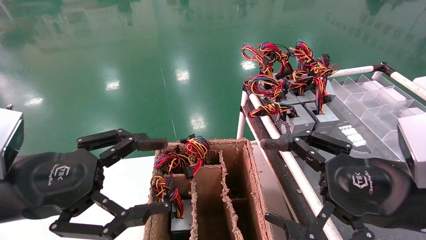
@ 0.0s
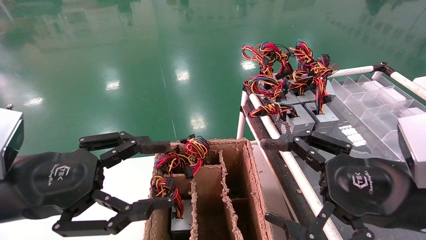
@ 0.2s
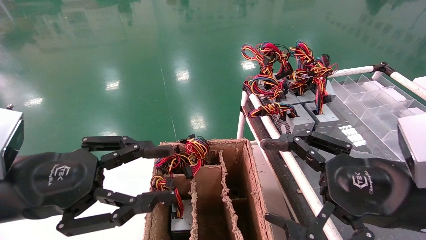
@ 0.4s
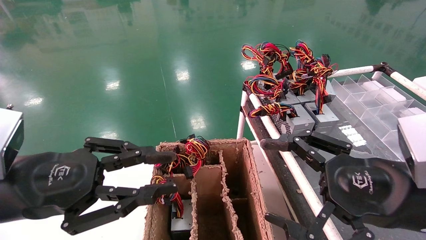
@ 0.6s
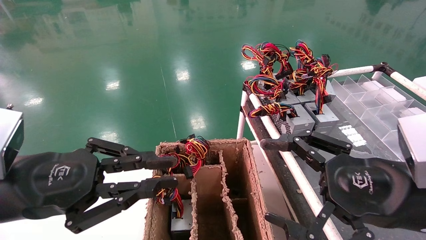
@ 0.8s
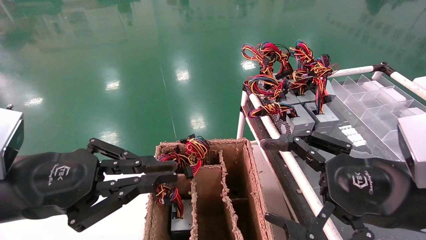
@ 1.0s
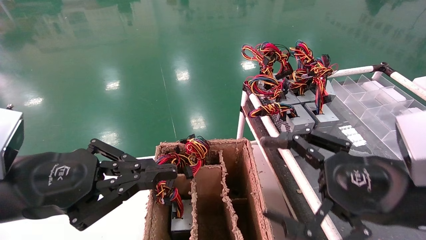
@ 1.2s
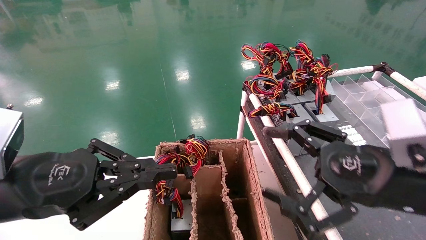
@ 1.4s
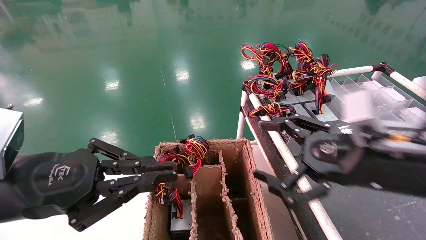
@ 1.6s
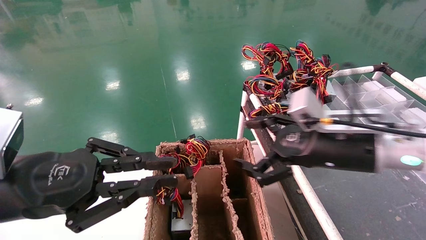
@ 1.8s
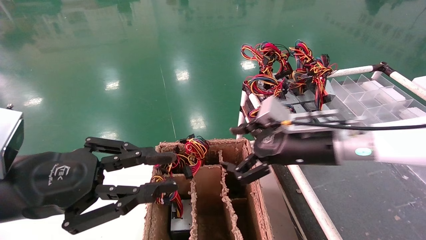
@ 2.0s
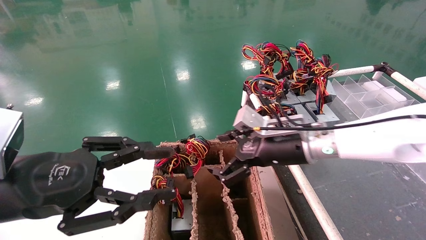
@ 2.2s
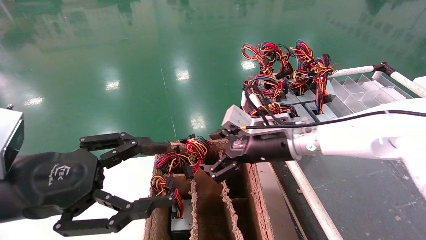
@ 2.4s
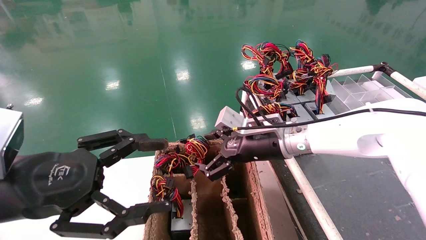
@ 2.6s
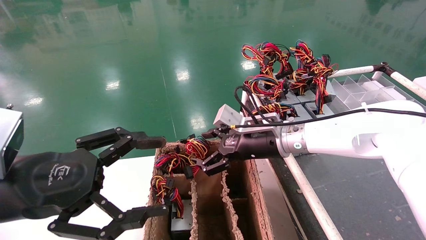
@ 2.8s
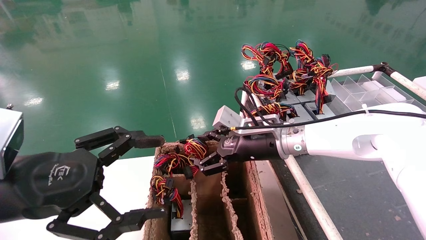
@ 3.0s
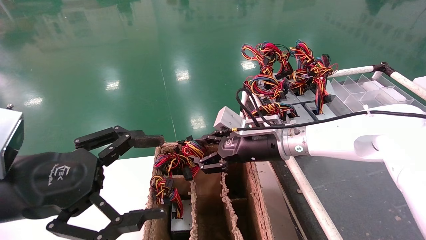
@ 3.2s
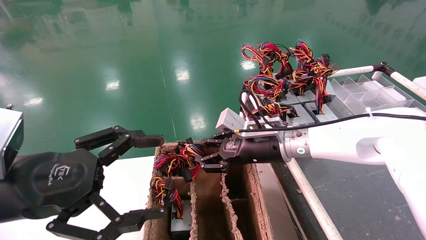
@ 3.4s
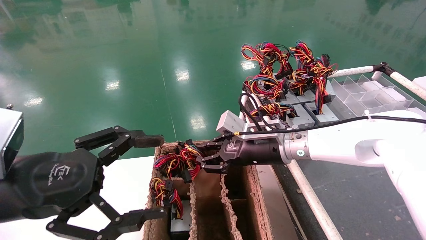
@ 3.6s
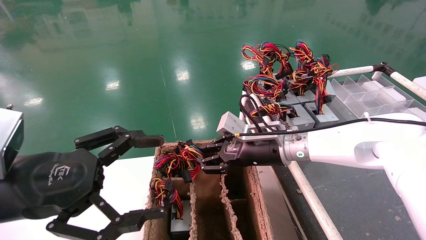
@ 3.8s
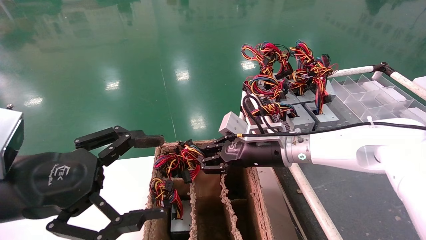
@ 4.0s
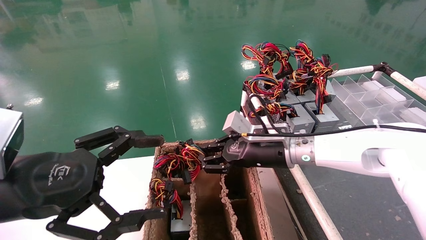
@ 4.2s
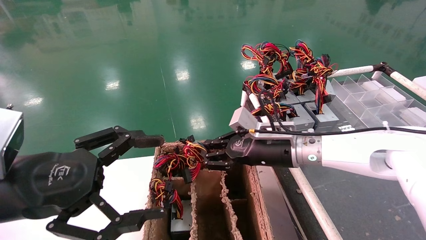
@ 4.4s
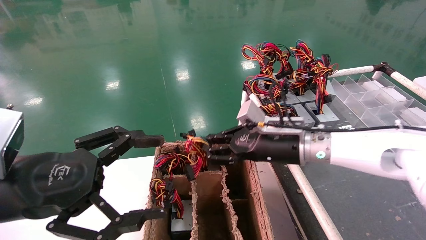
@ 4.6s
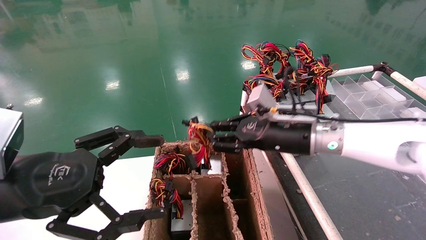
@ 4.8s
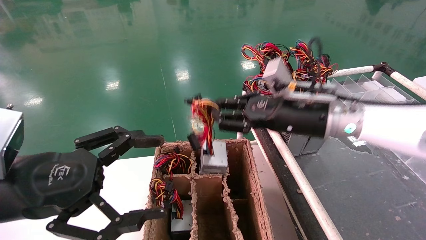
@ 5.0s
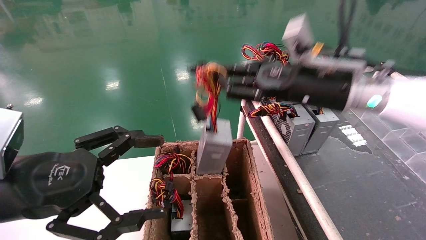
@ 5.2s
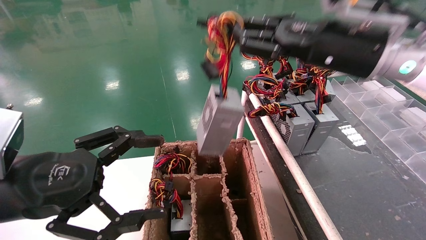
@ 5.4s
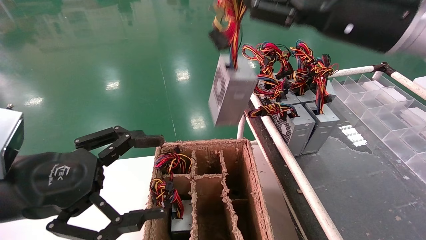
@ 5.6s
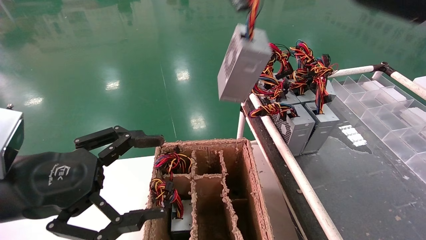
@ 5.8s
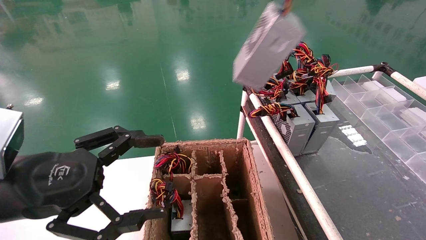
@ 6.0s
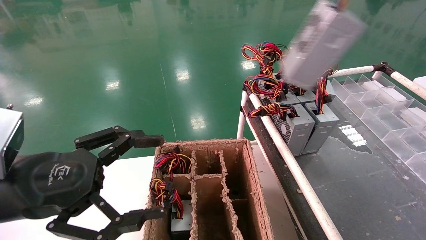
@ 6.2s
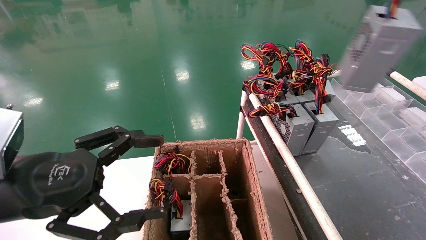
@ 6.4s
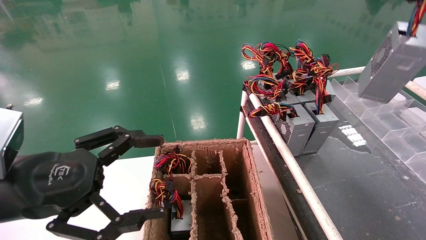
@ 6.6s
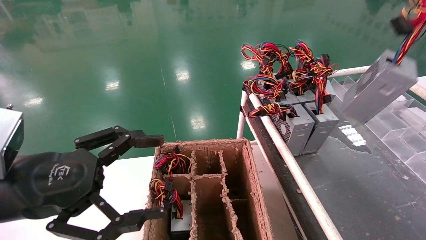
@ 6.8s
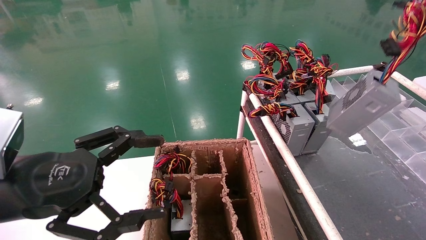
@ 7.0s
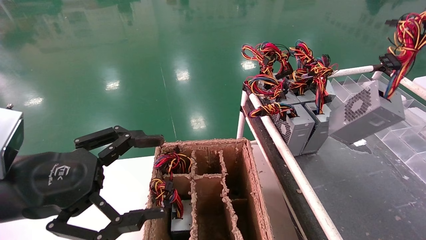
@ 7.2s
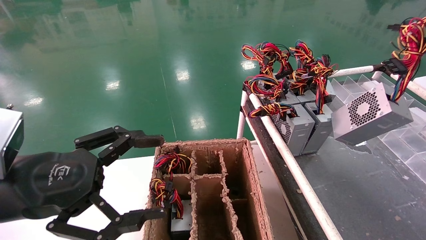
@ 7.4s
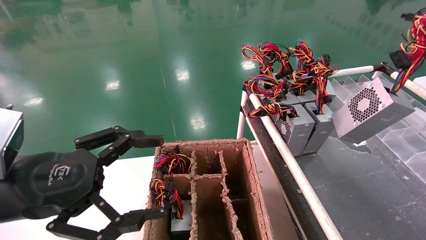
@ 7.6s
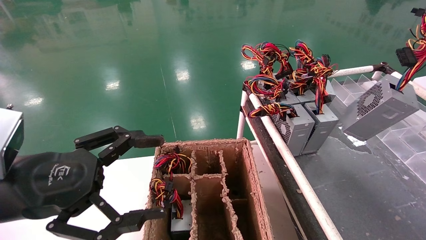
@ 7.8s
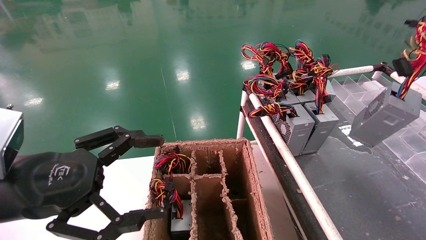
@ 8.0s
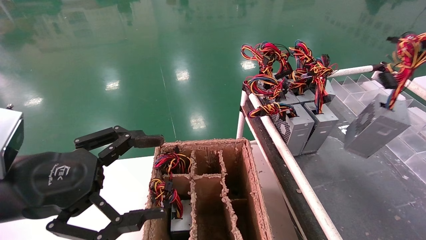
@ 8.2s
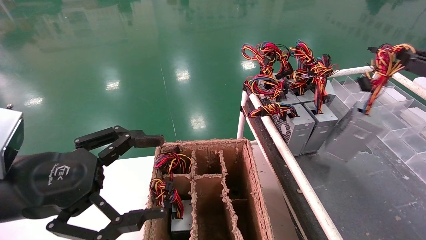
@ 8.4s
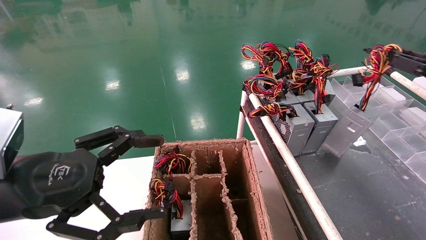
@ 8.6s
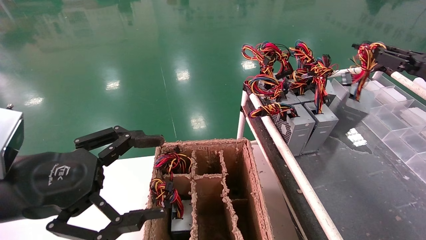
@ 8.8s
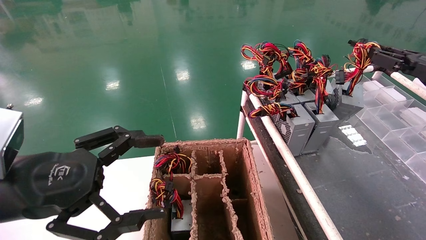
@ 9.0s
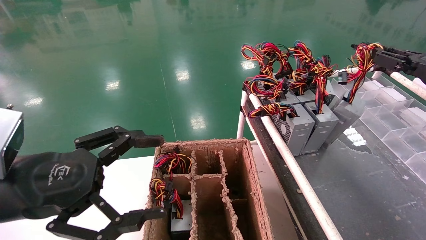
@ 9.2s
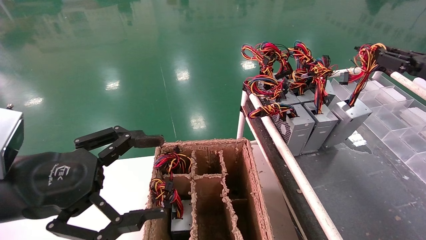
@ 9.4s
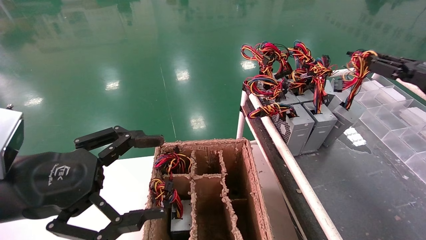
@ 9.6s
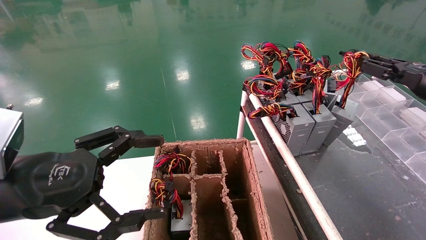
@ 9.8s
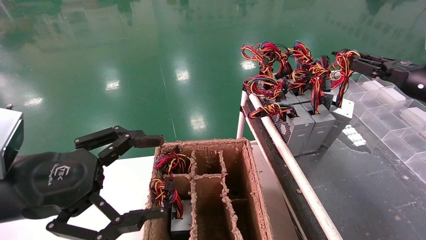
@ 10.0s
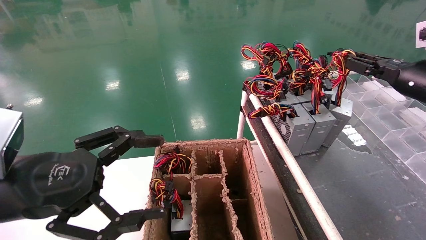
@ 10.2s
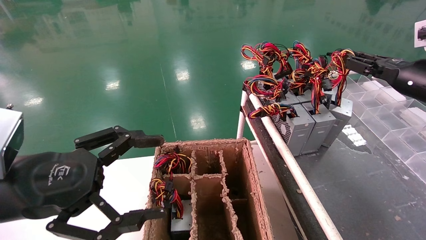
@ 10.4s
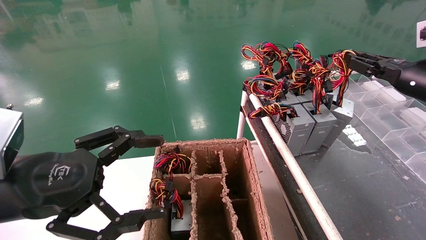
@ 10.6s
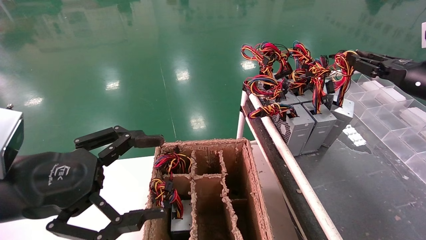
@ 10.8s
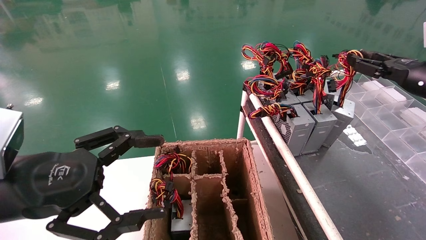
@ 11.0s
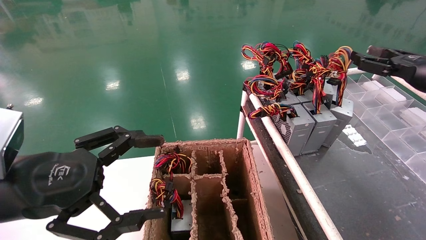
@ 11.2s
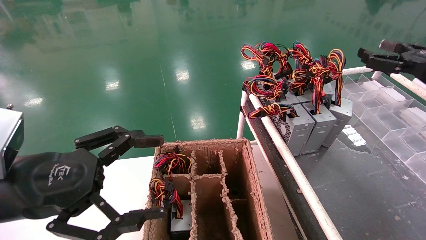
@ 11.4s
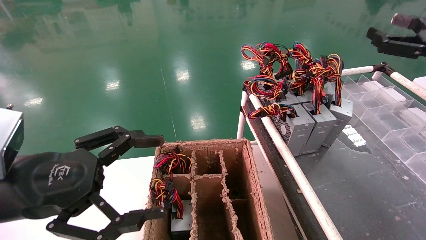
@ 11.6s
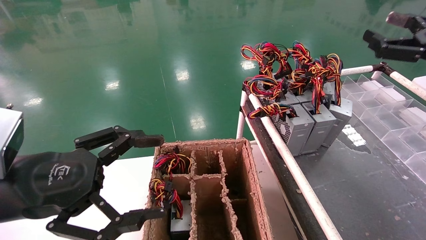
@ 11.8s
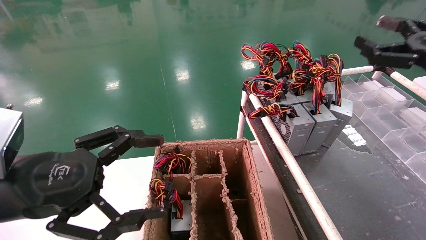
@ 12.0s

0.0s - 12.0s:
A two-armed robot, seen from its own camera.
Step, 1.4s - 4.0s: Grab and lift the power supply from the large box.
Step, 4.2s - 10.8s: Place the power supply on the operating table.
0.0s - 1.6s: The right gripper heads forward, covering approximately 5 cm. Meanwhile the left gripper closes up.
1.6s - 3.0s: The left gripper opens its fingers, while the right gripper heads forward and to the left, covering approximately 20 cm.
3.0s - 4.4s: The right gripper closes its fingers.
4.4s - 6.0s: The right gripper goes approximately 35 cm upward, to the right and backward.
6.0s - 7.6s: The right gripper heads to the right and downward, covering about 20 cm.
7.6s - 9.0s: The right gripper goes about 10 cm forward.
9.0s - 10.4s: The grippers stay close to where they were, moving slightly.
10.4s - 12.0s: The right gripper travels backward by some 5 cm, and opens.

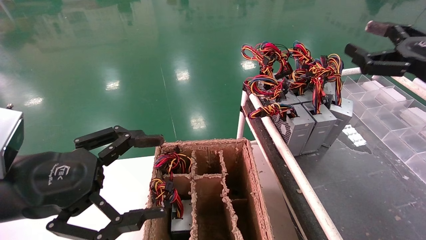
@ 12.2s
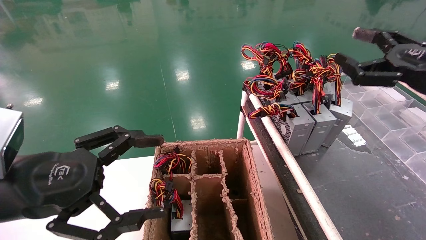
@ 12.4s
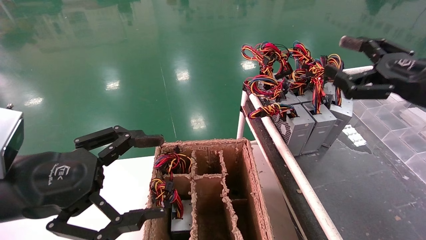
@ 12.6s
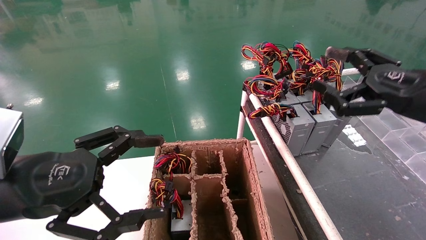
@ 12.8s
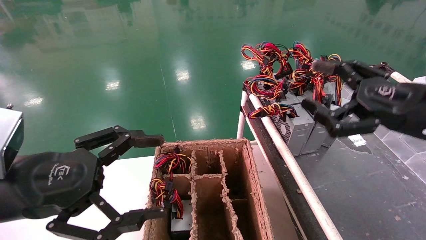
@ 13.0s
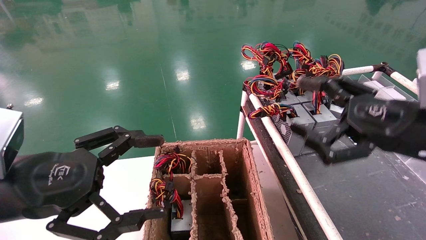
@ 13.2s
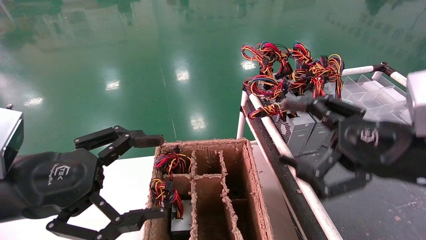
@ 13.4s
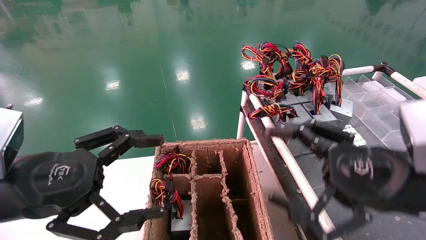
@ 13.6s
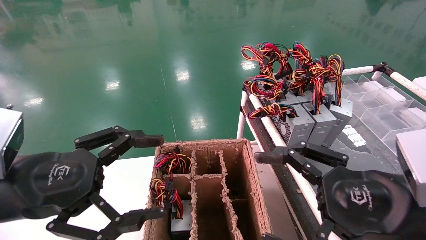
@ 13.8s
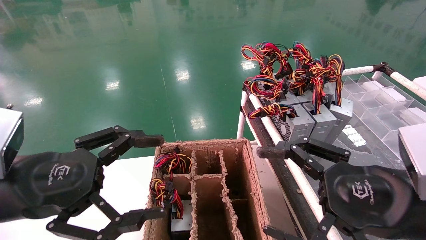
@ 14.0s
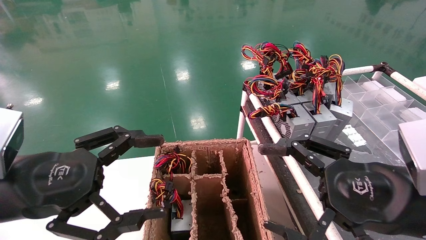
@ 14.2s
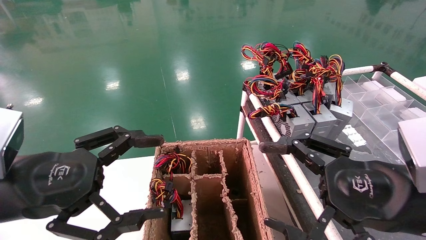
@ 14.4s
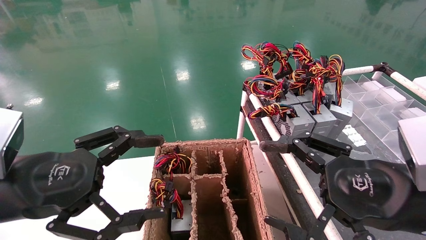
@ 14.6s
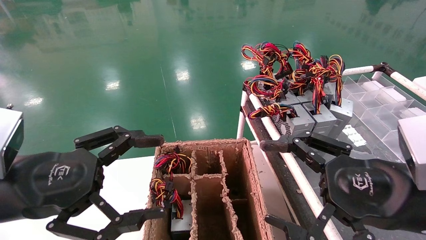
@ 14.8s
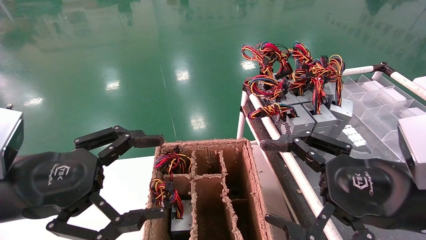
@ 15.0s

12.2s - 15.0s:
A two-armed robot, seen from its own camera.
12.2s - 13.6s: The right gripper goes approximately 20 cm to the left, backward and downward.
13.6s - 15.0s: The grippers stay close to where they were, moving slightly.
